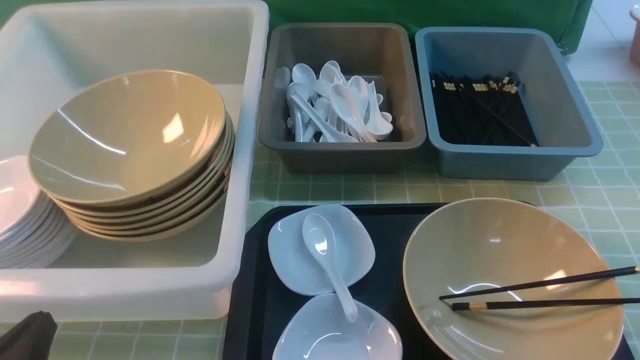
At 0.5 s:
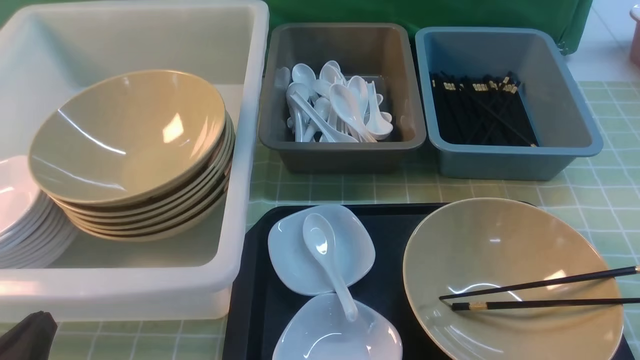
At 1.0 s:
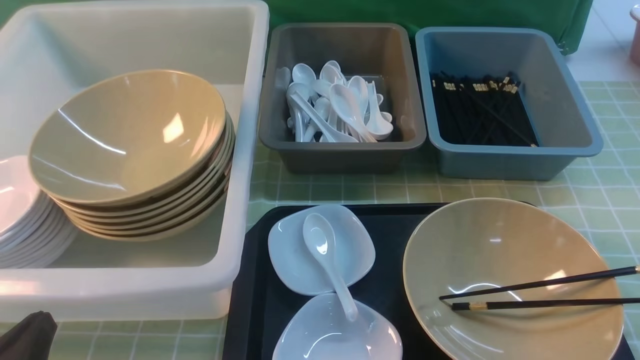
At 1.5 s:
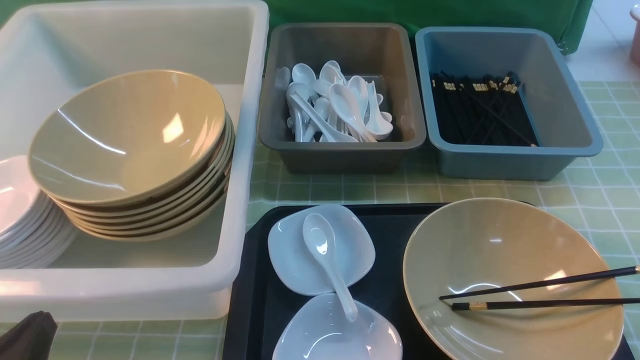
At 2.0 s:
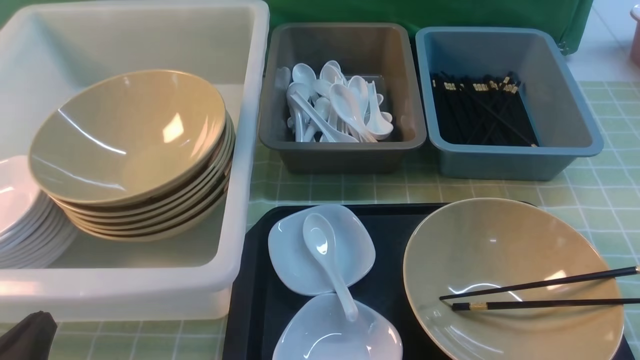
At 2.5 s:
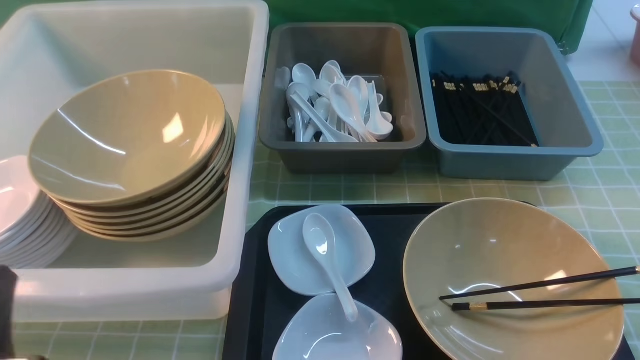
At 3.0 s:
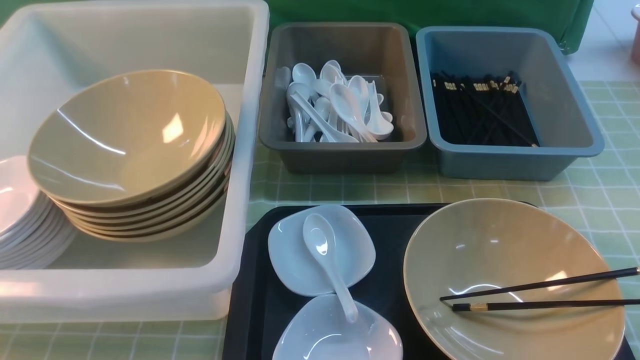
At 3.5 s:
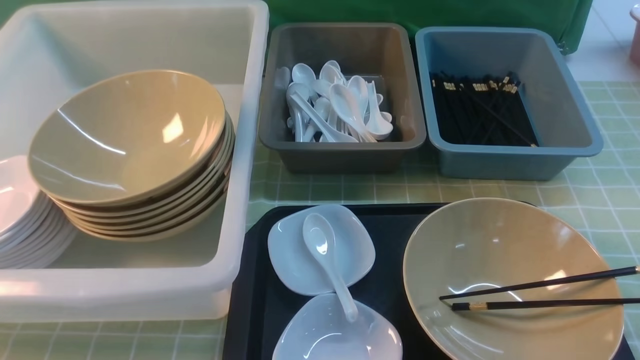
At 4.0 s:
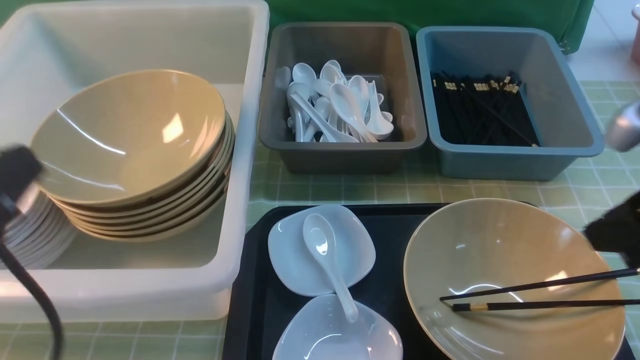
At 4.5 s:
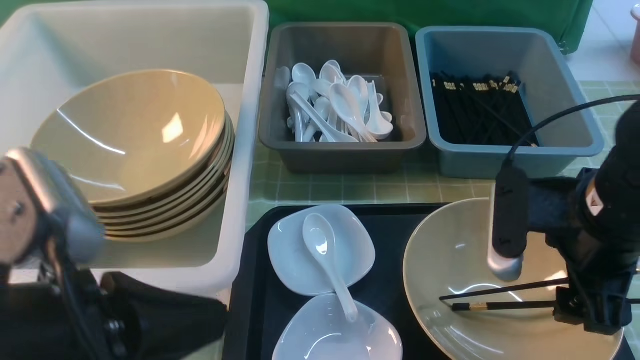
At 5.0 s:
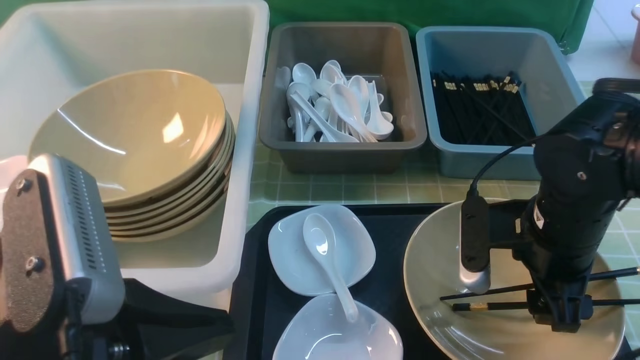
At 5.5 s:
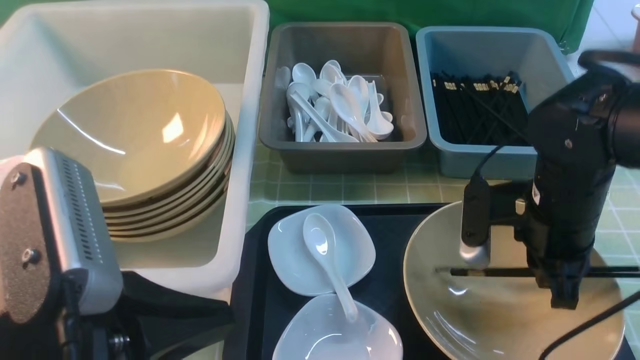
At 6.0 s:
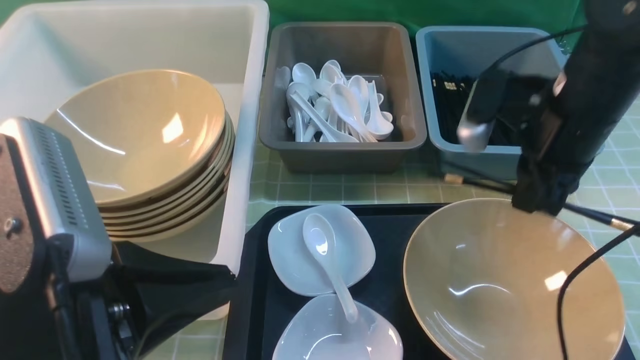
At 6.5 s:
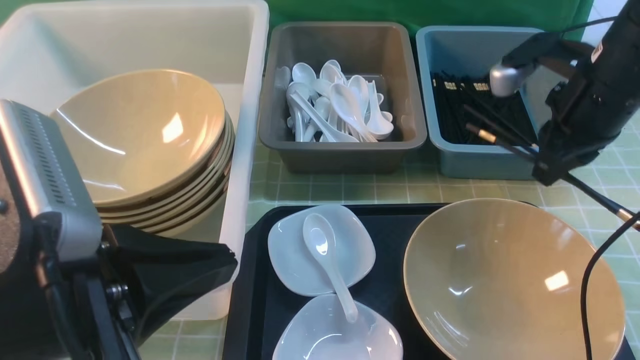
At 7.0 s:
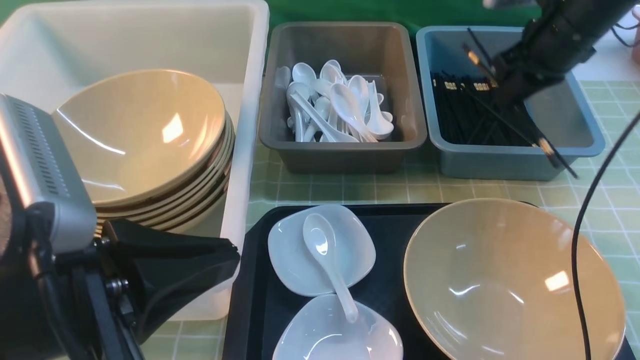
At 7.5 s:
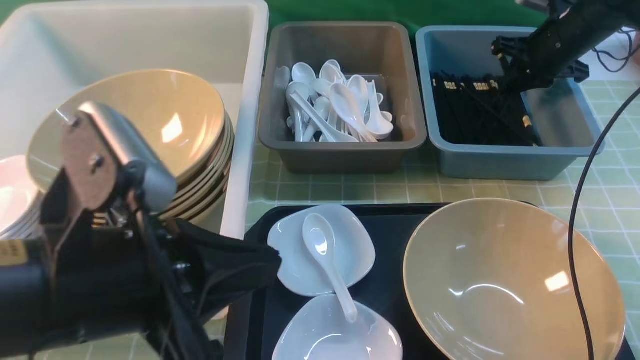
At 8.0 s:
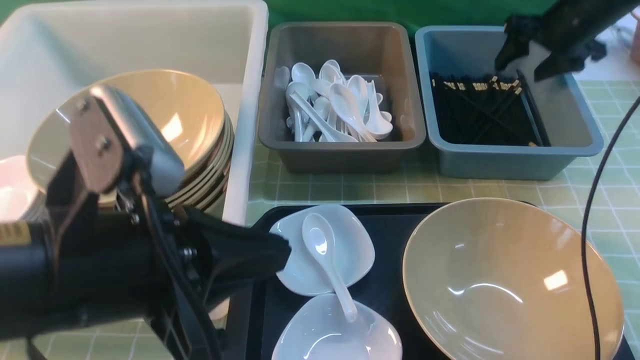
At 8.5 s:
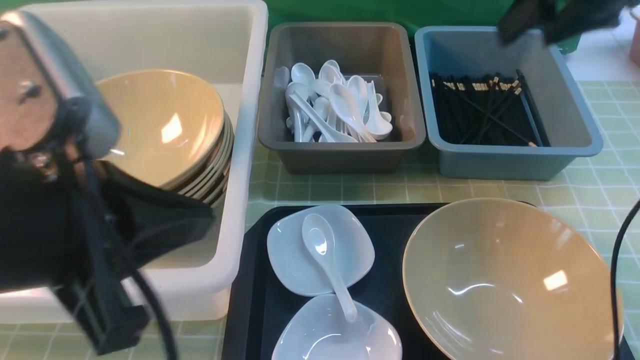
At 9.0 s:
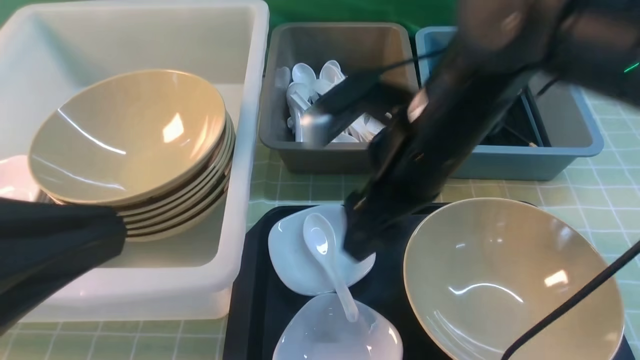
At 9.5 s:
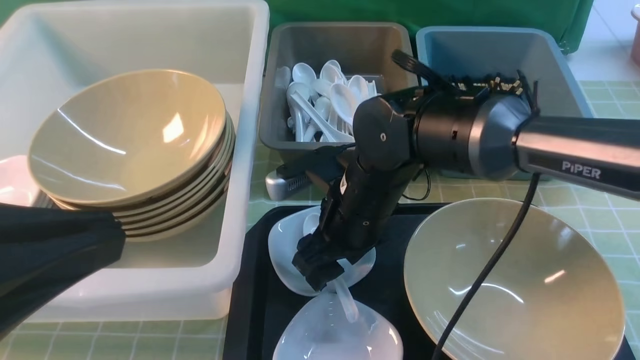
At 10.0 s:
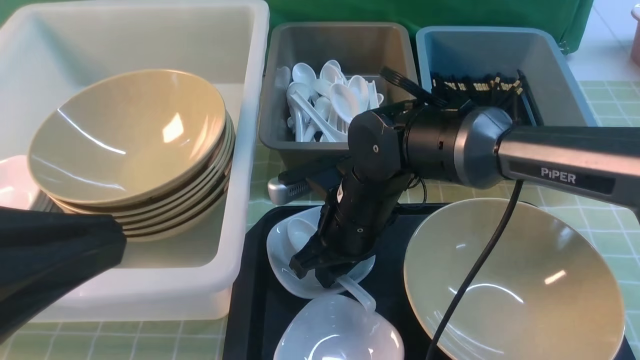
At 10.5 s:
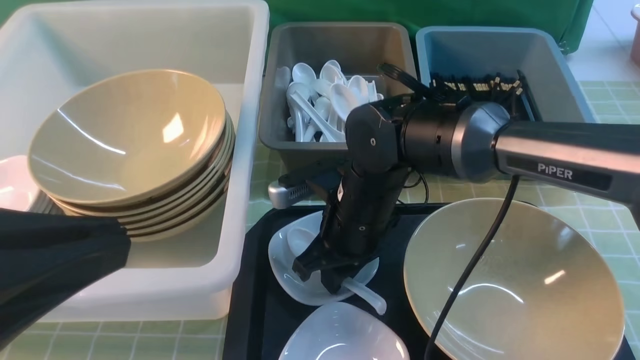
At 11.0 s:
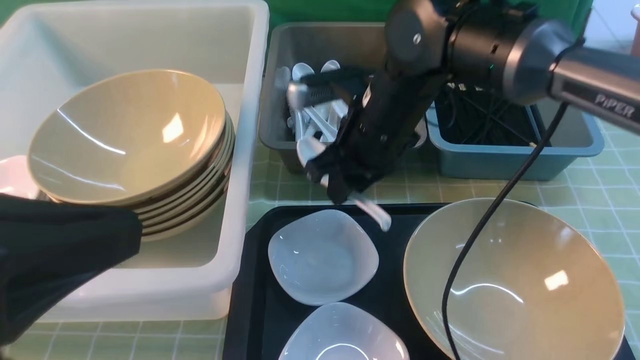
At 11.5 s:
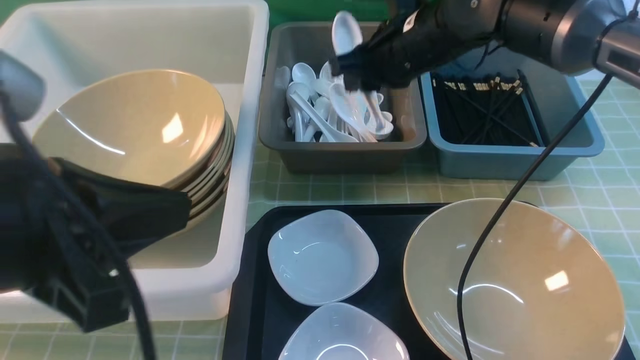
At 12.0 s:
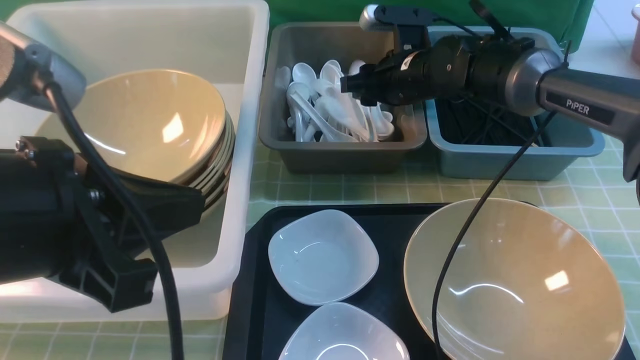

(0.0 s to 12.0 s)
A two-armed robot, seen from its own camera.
Task of the whole recording: on green table put chopsticks spoon bowls plates into blue grey white boxes.
Step, 0.0 s - 5.5 s: use the right arm to grab the chopsticks.
Step, 6.0 s - 7.5 s: use the right arm to put the chopsticks into the small storage box on the right.
Step, 8.0 s - 10.5 s: use the right arm to grab the soup spoon in the middle.
0.0 s - 2.0 s: The two grippers keep their place.
2.0 s - 4.0 s: The left gripper moves upward, approximately 15 cm, while the right gripper travels forward and upward by roughly 20 cm.
4.0 s - 6.0 s: The right gripper travels forward and to the left by approximately 15 cm, and closes. The left gripper travels to the right by roughly 5 cm.
6.0 s - 8.0 s: The right gripper travels forward and to the right by approximately 20 cm, and opens up.
8.0 s - 10.0 s: The left gripper goes roughly 10 cm backward, upward and to the left; the right gripper travels to the left and backward by approximately 35 cm, and closes its fingers.
10.0 s - 12.0 s: The right gripper shifts approximately 20 cm forward and to the right. The left gripper goes about 5 cm forward.

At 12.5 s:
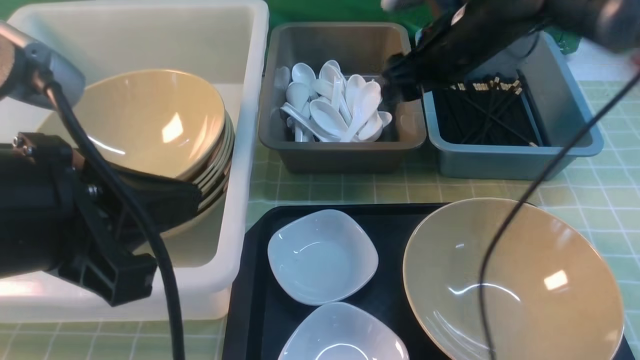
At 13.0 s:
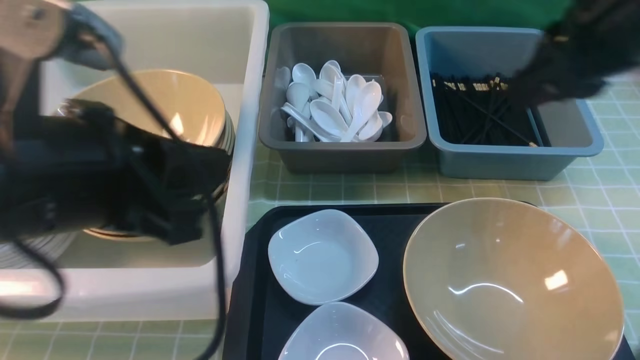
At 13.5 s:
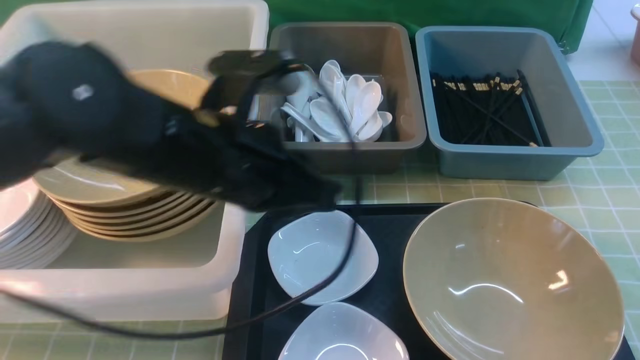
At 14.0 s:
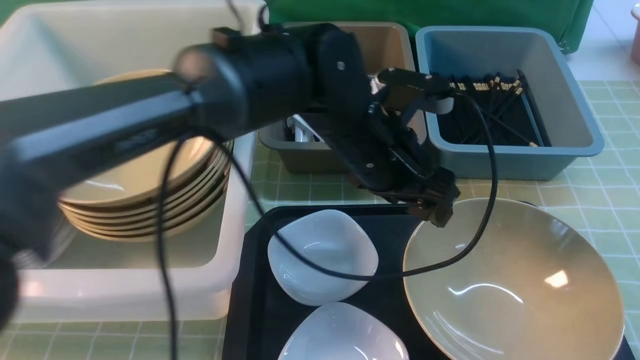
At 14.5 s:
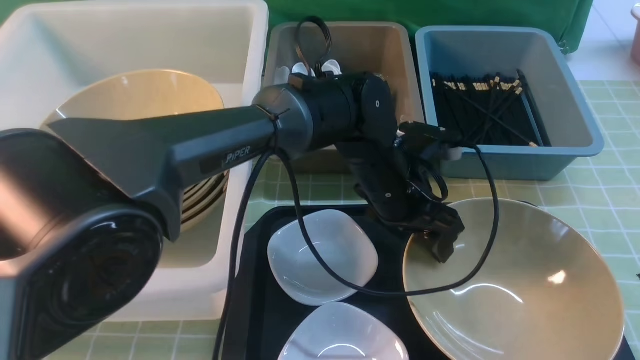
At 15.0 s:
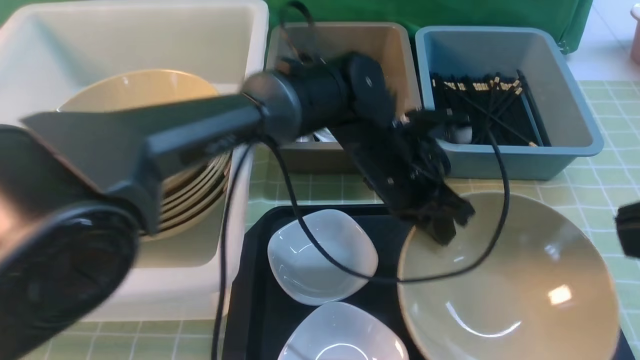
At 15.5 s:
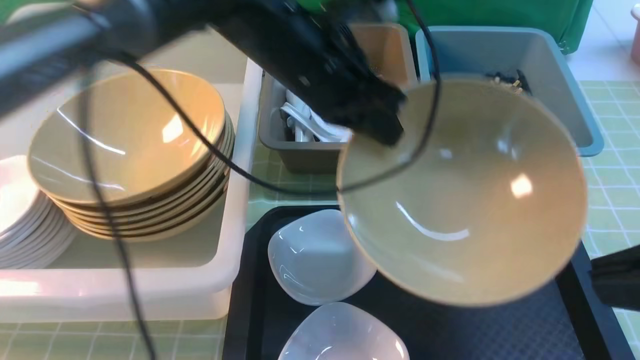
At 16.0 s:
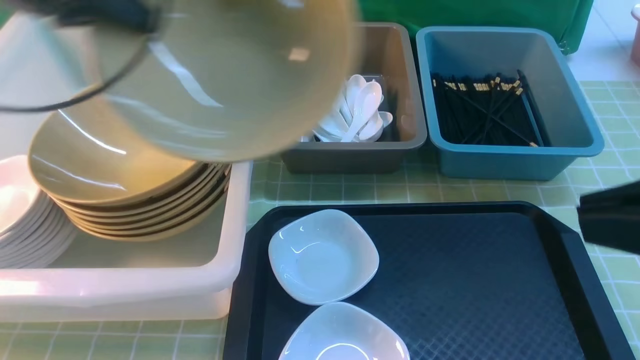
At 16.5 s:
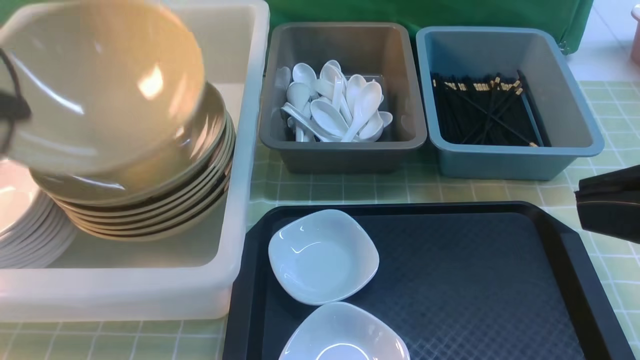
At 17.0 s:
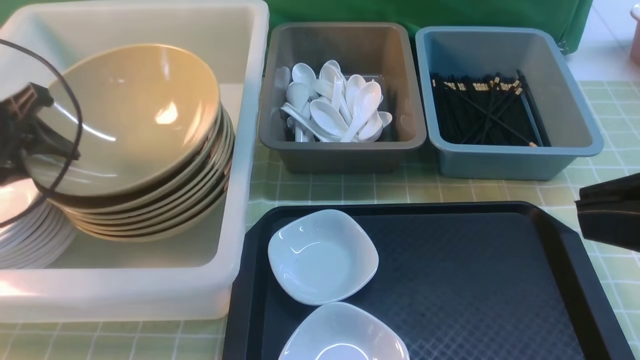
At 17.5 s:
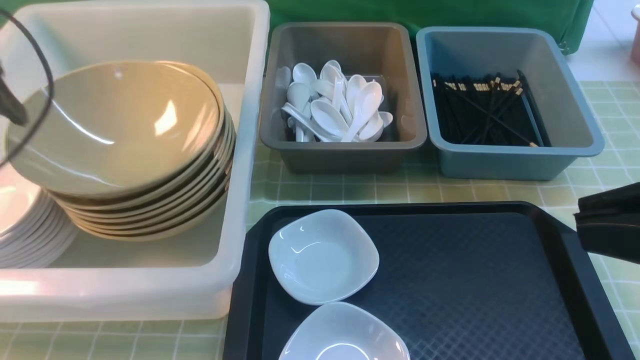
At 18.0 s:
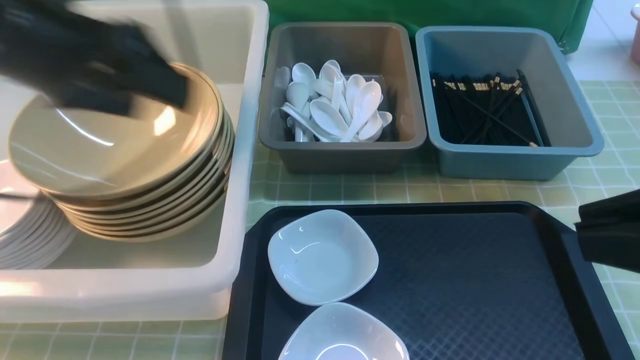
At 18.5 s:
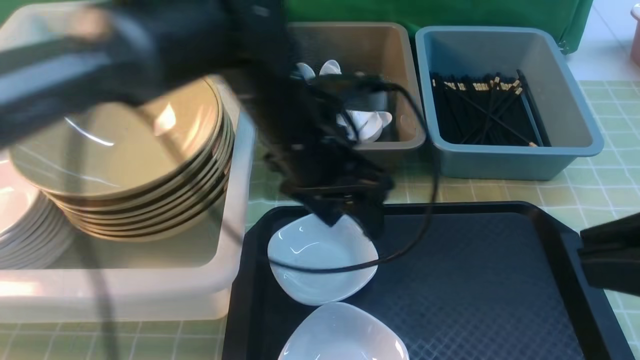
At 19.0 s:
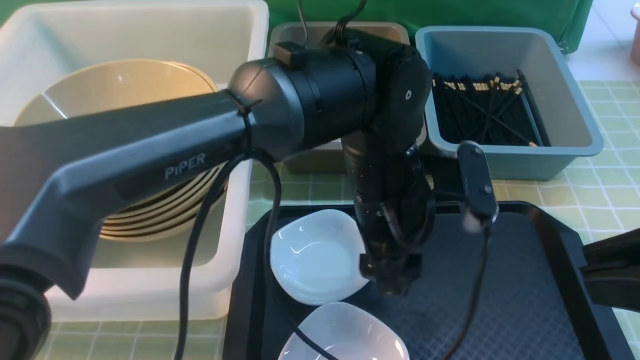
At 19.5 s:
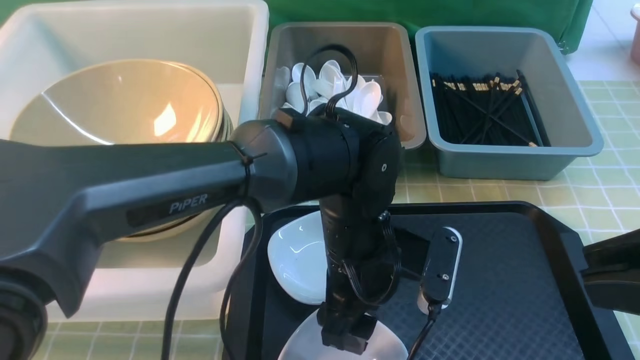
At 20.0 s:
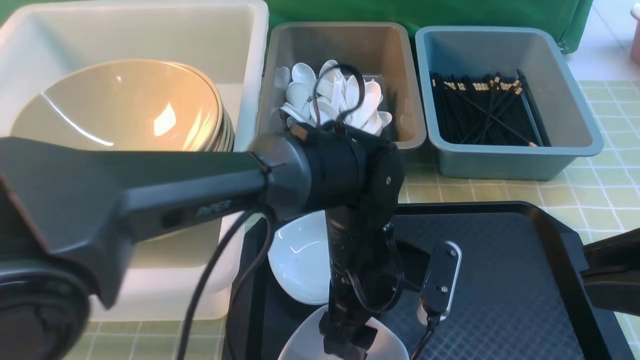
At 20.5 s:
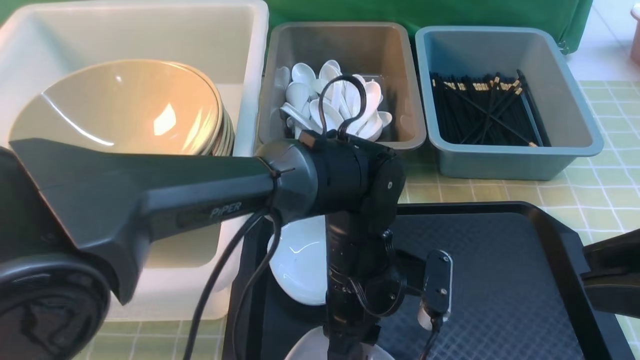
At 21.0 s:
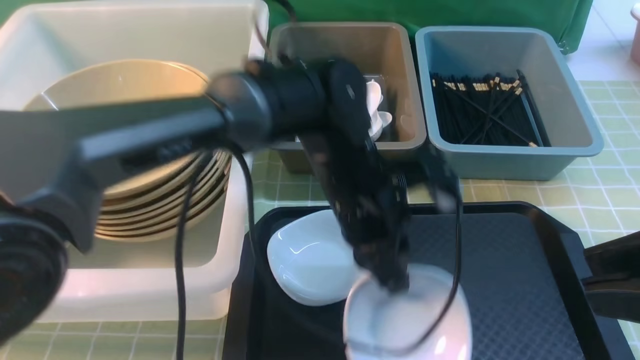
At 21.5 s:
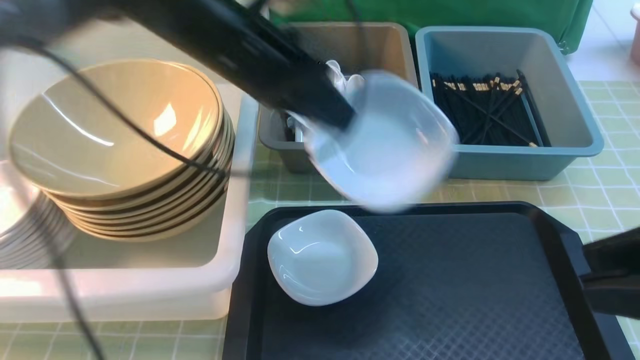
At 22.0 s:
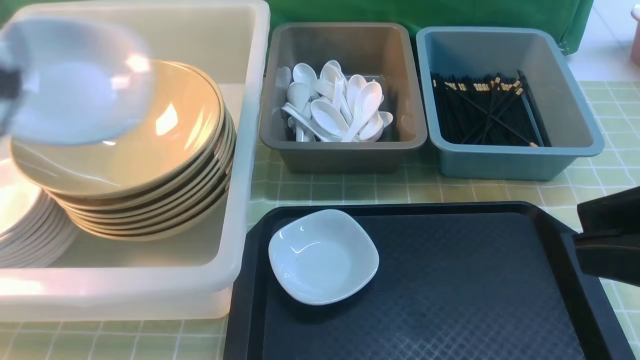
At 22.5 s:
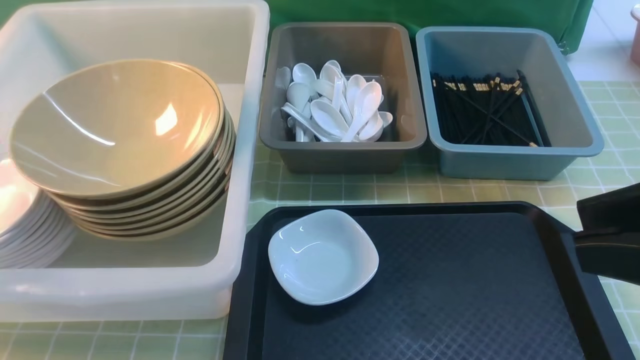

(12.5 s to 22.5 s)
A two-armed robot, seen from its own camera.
Task of the whole recording: on green table put chopsticks spoon bowls plates into blue grey white boxes.
Step, 12.5 s - 15.0 s: use the left arm to grab the yellow noodle bowl on the left.
Step, 15.5 s - 17.5 s: use the left arm to put the noodle bowl into the large storage box on the left.
Step, 18.0 s - 21.0 s: use the left arm to grab the plate.
12.5 s - 14.5 s: The right gripper is displaced backward by about 35 cm, and closes its fingers, while the left gripper shifts about 35 cm to the right, forward and downward, and opens.
14.5 s - 16.5 s: The left gripper shifts approximately 40 cm to the left, and closes its fingers.
16.5 s - 18.5 s: The left gripper heads to the right, covering approximately 35 cm, and opens its fingers.
18.5 s - 20.5 s: The left gripper shifts about 10 cm downward, and closes up.
20.5 s - 22.5 s: The left gripper moves to the left, roughly 40 cm.
